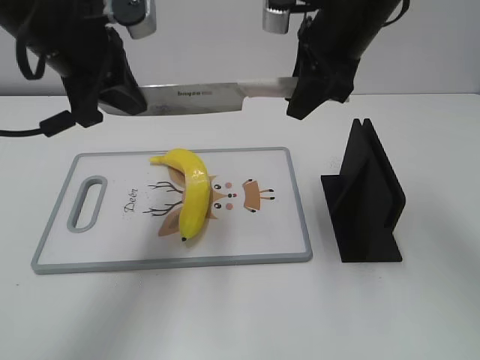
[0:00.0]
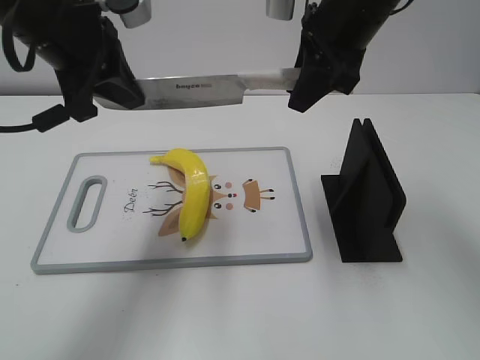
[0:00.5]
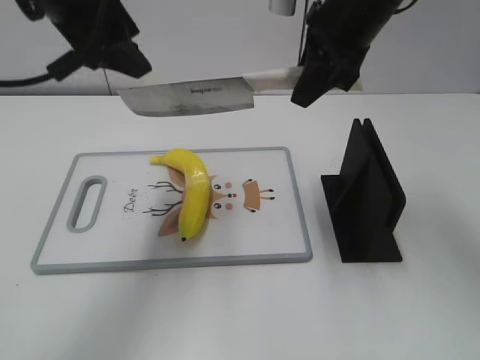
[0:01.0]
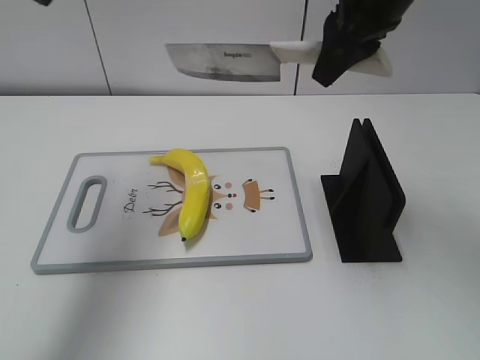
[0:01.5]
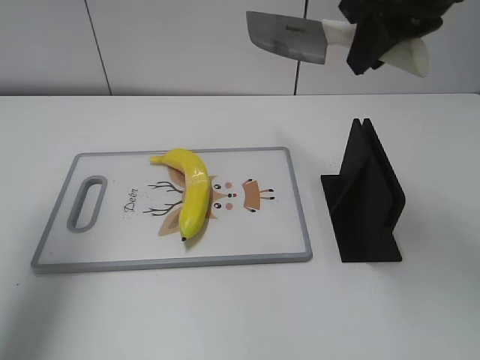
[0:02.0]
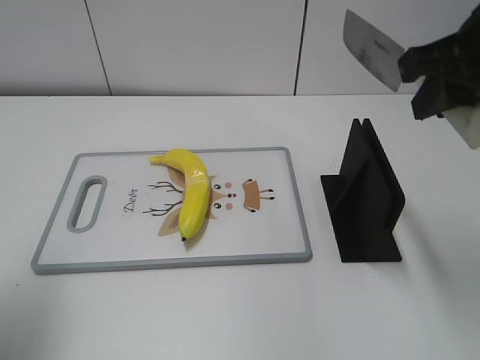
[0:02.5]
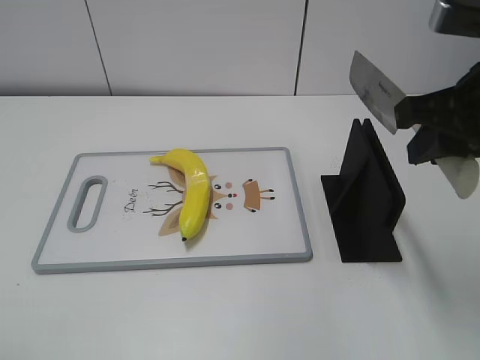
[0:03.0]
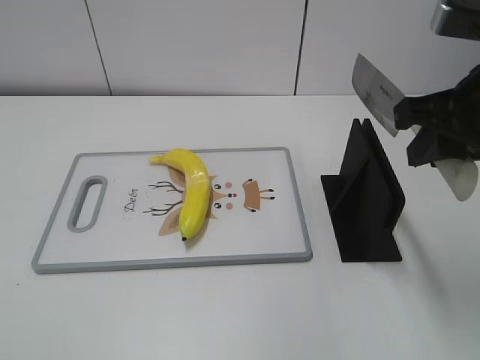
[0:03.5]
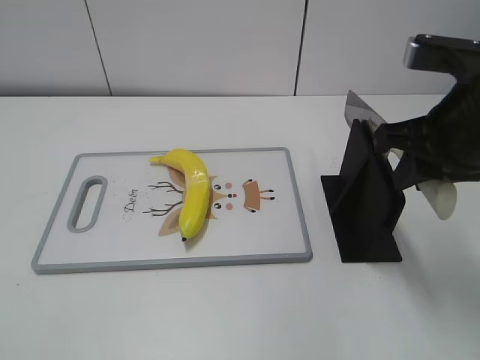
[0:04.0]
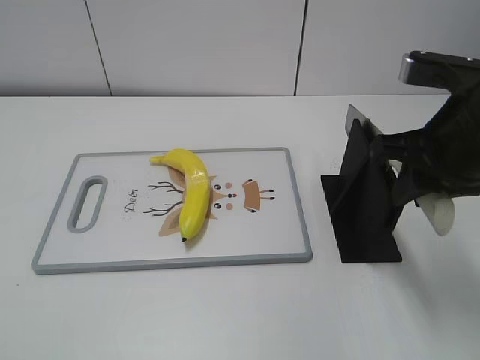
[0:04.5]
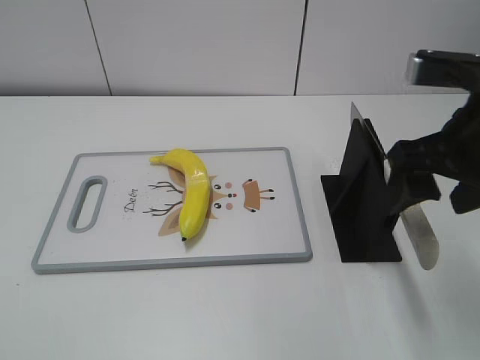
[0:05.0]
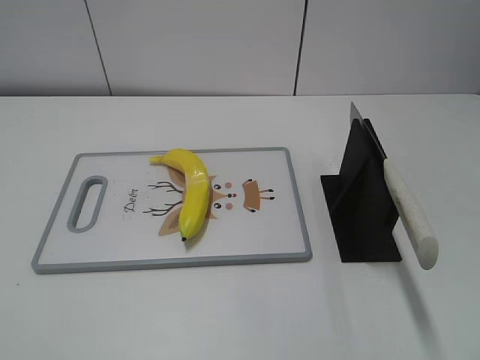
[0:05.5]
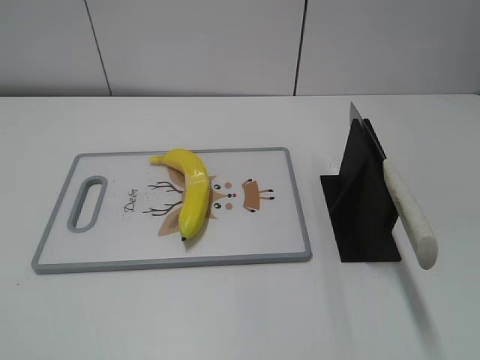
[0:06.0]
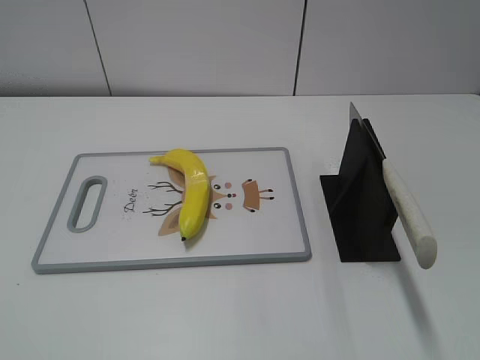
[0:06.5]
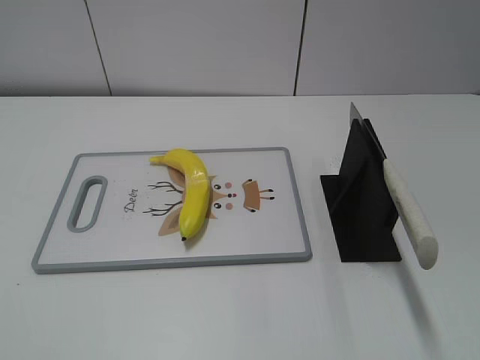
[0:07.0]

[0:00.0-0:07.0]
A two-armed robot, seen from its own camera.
Task of the whole recording: cut plastic banana.
Step, 0:01.0 to 0:01.5: Cut the banana with your right hand.
Step, 0:02.0 to 0:03.0: Lift the knife with your right hand.
Step, 0:03.5 to 0:07.0: Place the knife on the storage rack with your right hand.
0:00.0 to 0:02.0: The right gripper heads upward, covering some 5 cm; the left gripper travels to the left and upward by roughly 15 cm, and opens its fingers.
0:02.0 to 0:03.5: The left gripper goes some 30 cm backward; the right gripper moves backward, downward and to the right, about 10 cm.
0:03.5 to 0:05.0: The right gripper opens its fingers.
0:05.0 to 0:07.0: The right gripper shifts about 25 cm backward and to the right.
